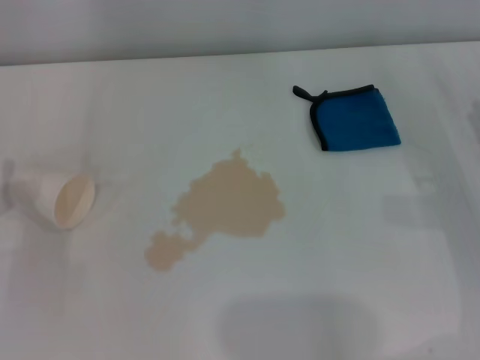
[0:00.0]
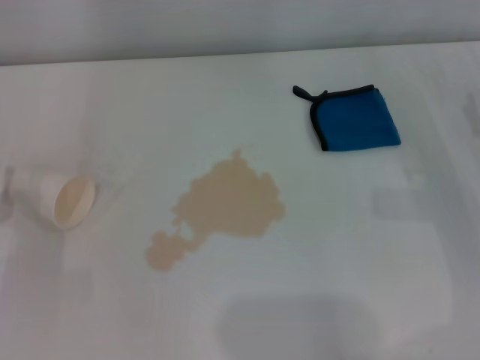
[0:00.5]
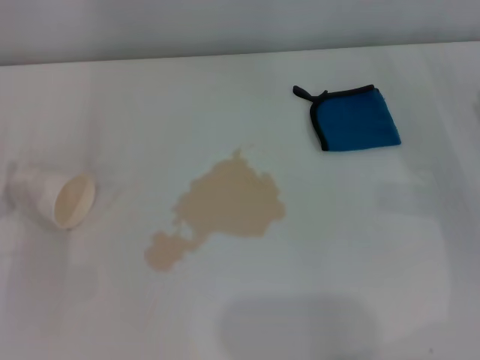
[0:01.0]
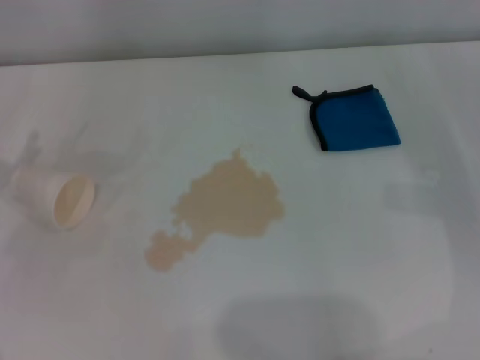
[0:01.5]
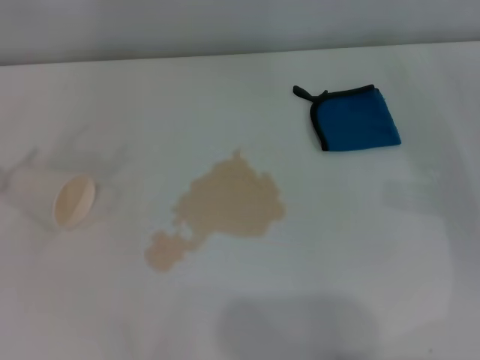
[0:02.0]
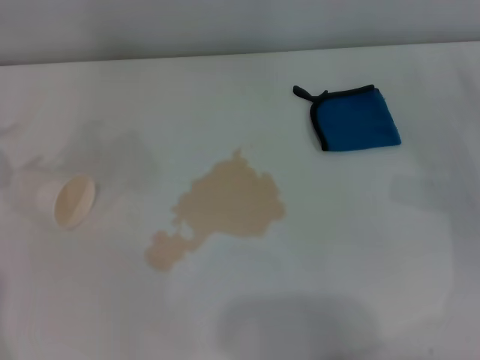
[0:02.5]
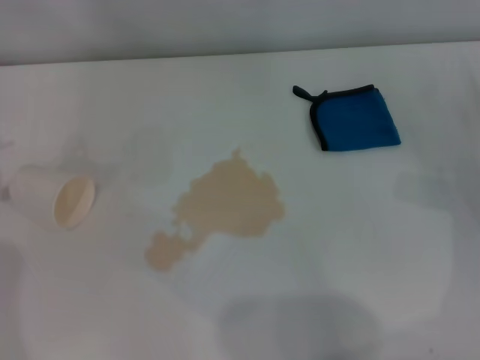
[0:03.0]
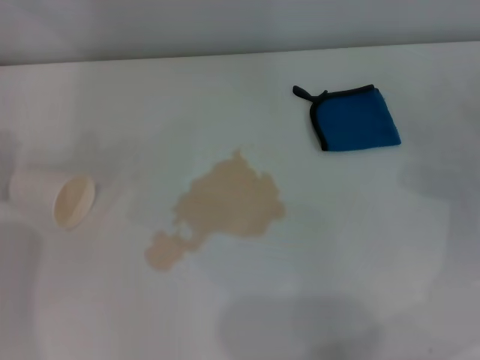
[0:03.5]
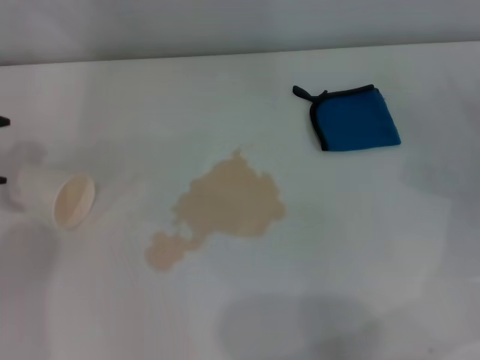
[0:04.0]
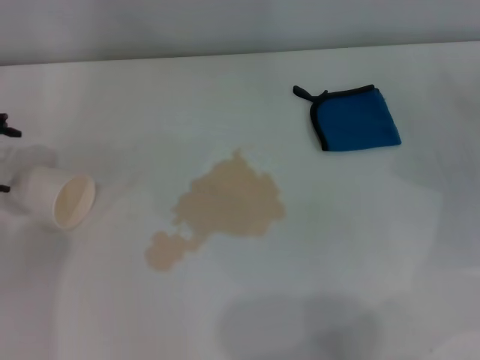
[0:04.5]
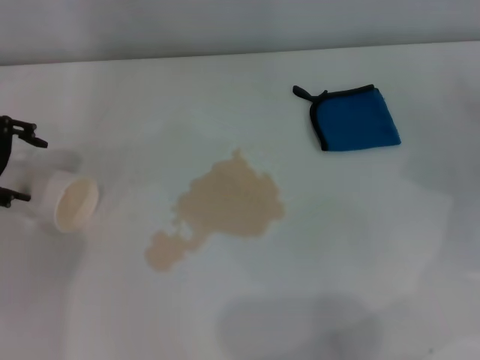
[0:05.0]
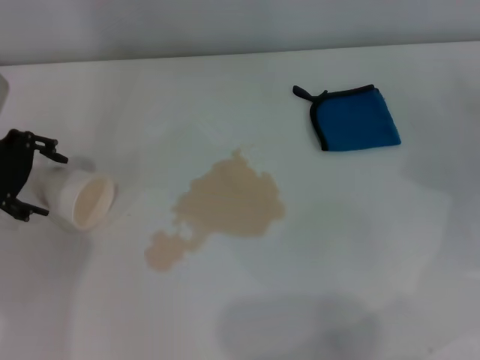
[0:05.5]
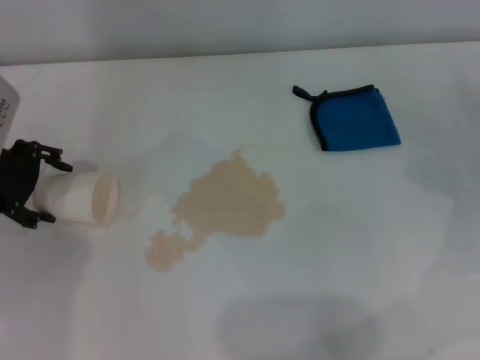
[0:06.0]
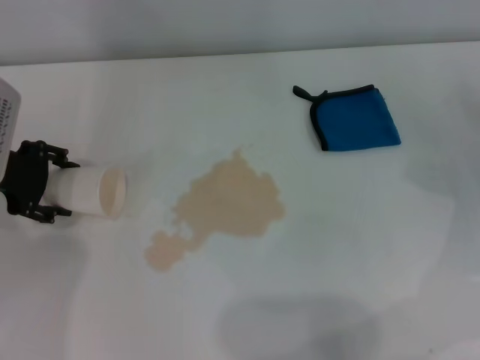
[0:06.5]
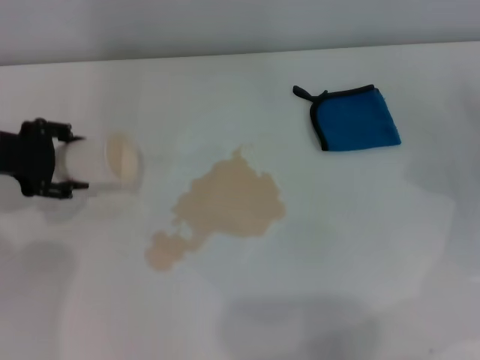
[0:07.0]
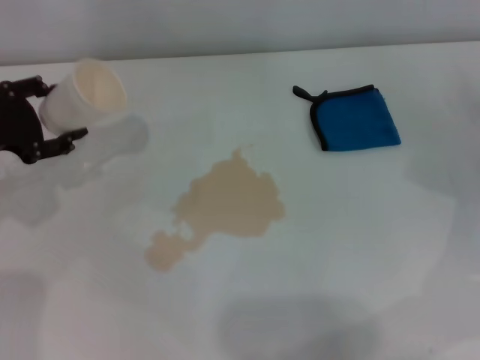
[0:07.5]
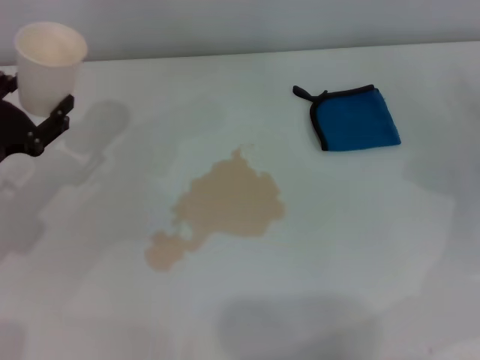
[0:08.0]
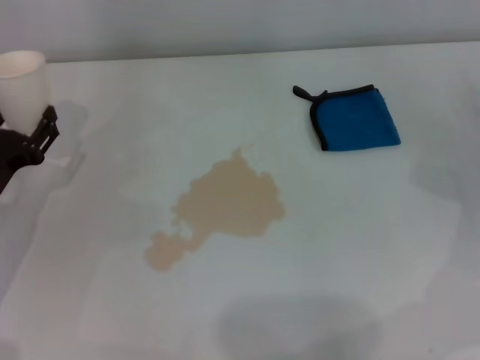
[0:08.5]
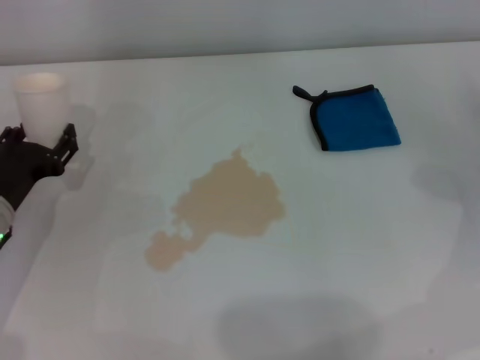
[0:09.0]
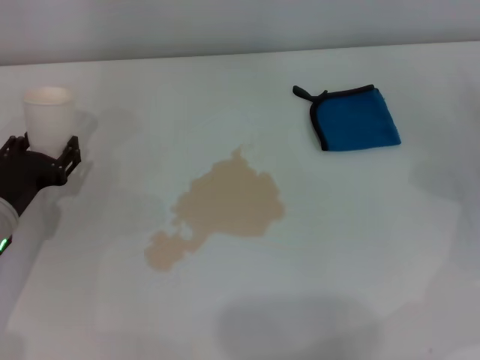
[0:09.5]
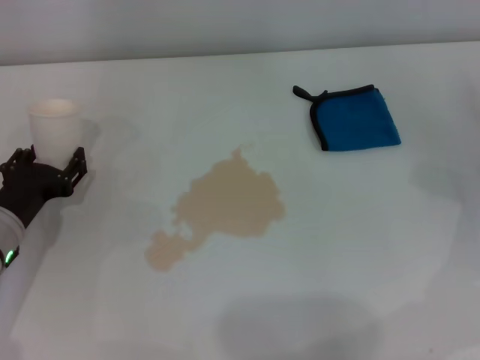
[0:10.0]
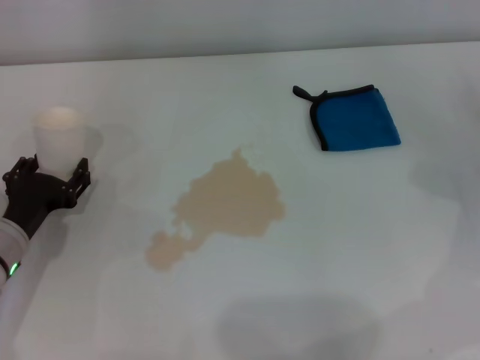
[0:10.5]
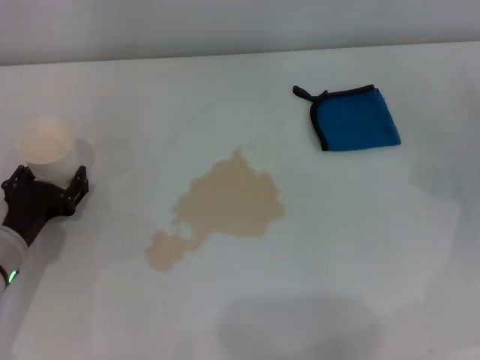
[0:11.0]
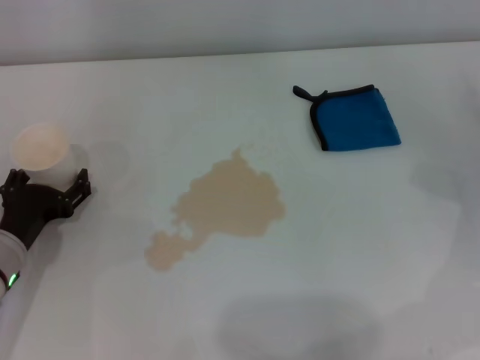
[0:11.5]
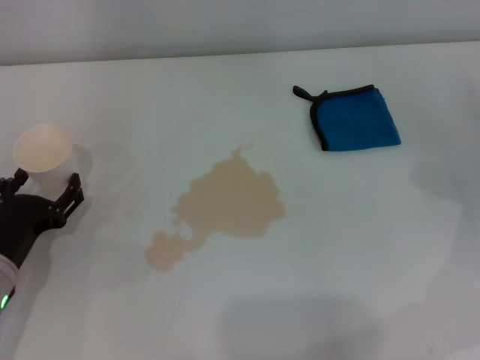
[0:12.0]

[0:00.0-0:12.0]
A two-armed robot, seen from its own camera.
Step, 0:00.0 to 0:06.5: Grasp the paper cup with the left gripper.
Step, 0:07.0 to 0:11.5: Stand the paper cup upright with the left gripper.
0:04.0 to 0:06.0: The left gripper goes about 10 cm to the right and downward.
0:06.0 to 0:08.0: The left gripper goes approximately 10 cm backward and downward, and closes up.
0:08.0 to 0:10.0: The left gripper goes some 5 cm downward.
0:10.0 to 0:12.0: The left gripper moves roughly 5 cm, and opens its fingers.

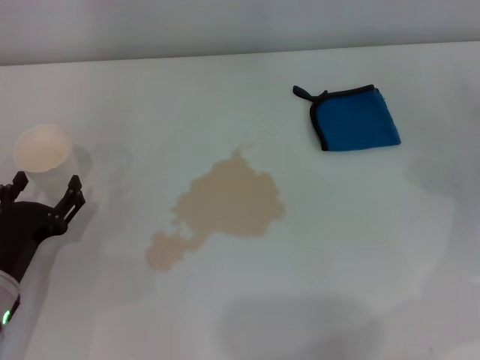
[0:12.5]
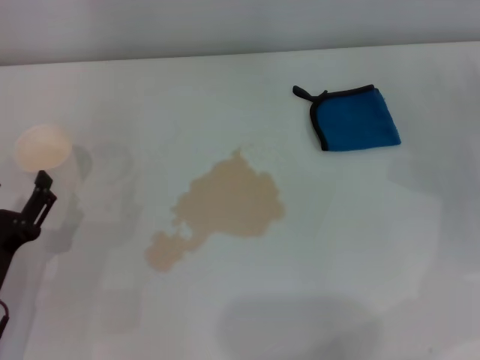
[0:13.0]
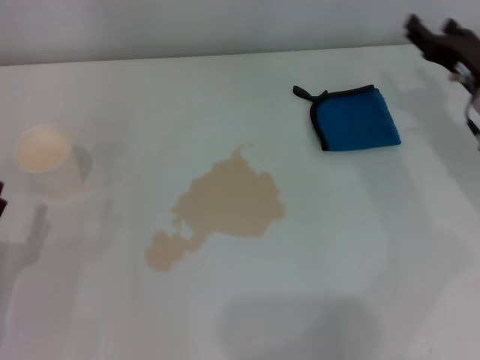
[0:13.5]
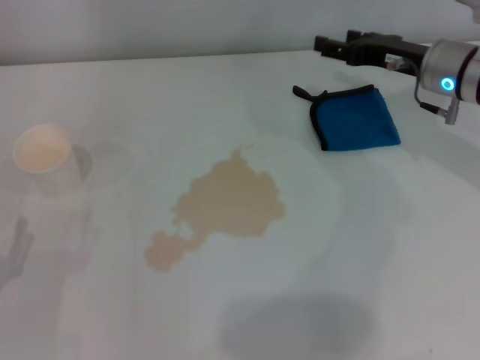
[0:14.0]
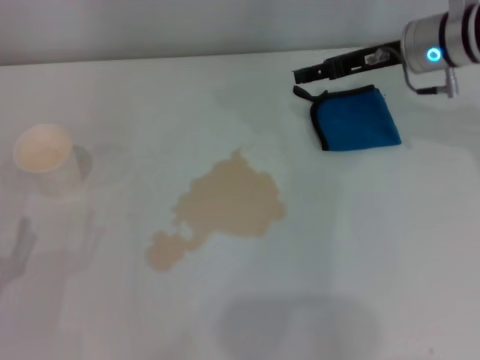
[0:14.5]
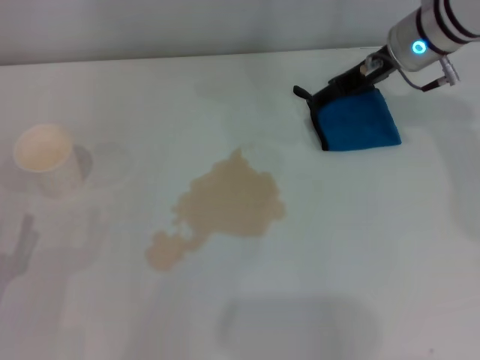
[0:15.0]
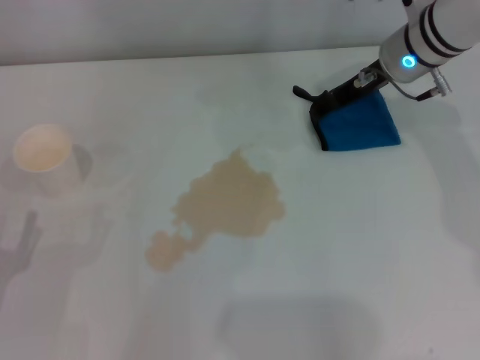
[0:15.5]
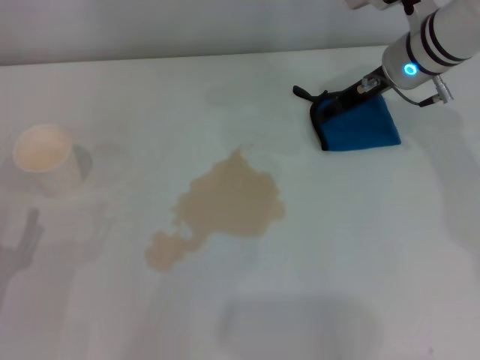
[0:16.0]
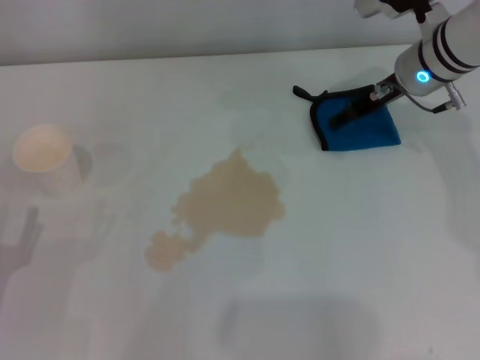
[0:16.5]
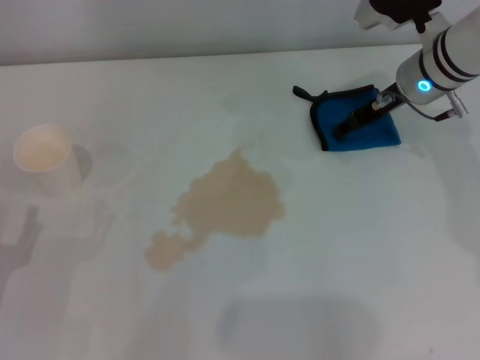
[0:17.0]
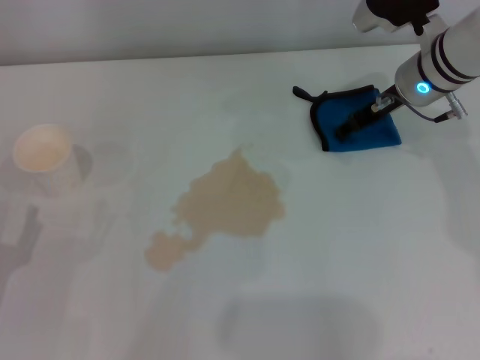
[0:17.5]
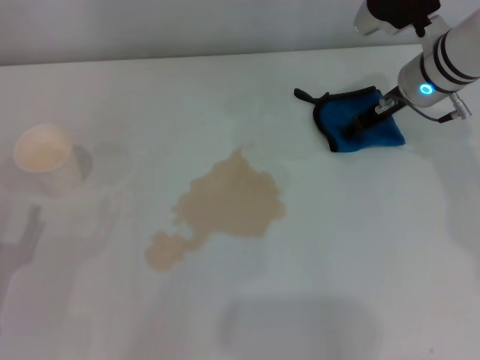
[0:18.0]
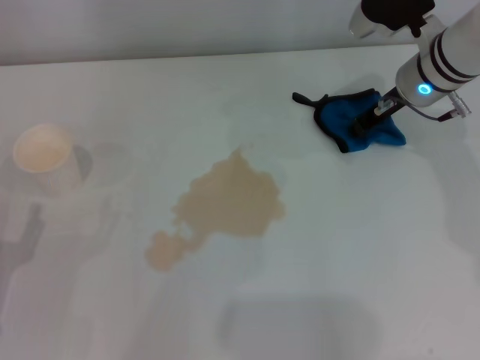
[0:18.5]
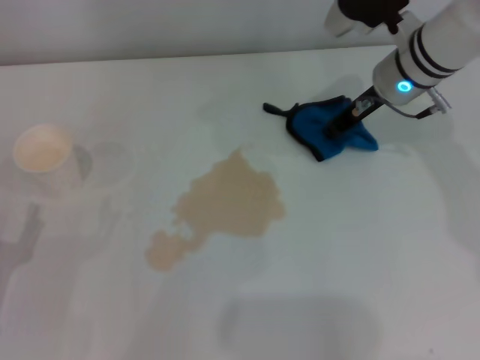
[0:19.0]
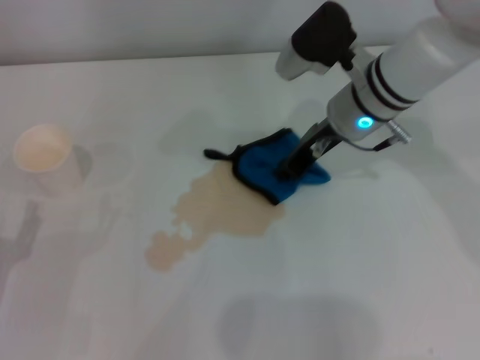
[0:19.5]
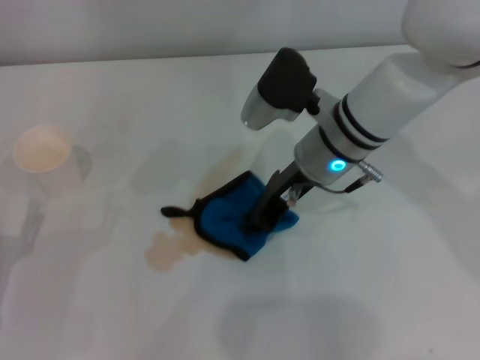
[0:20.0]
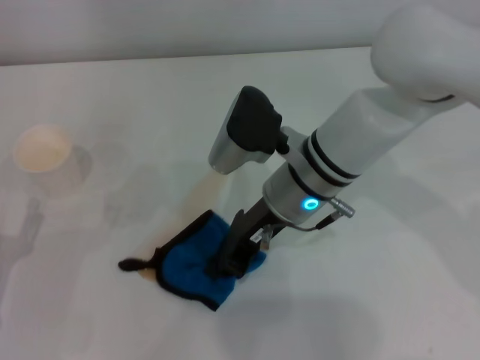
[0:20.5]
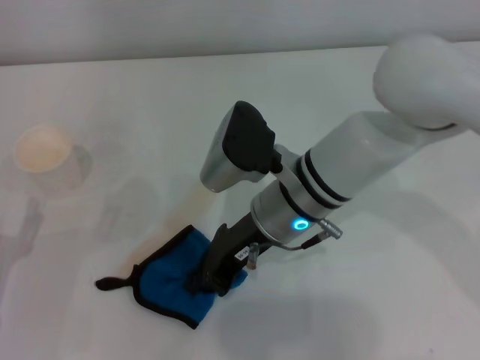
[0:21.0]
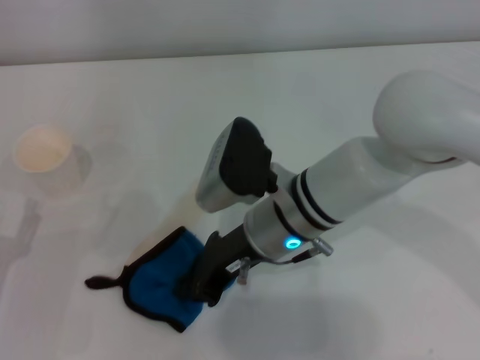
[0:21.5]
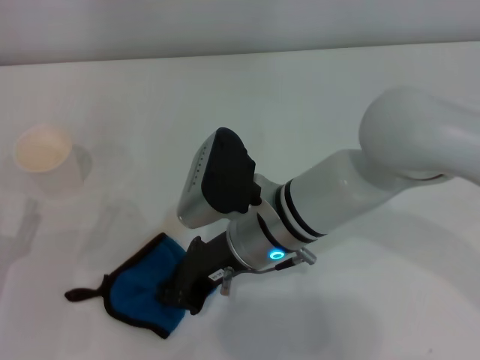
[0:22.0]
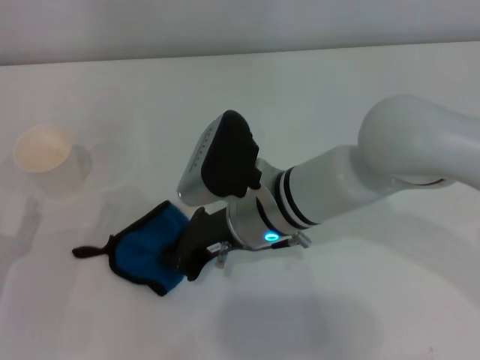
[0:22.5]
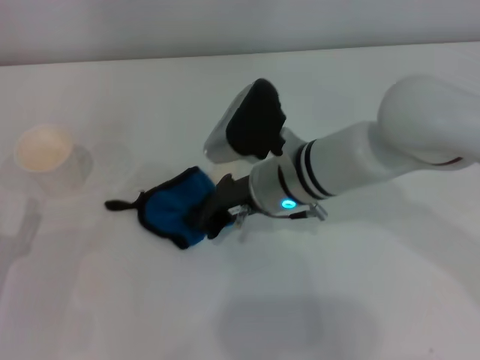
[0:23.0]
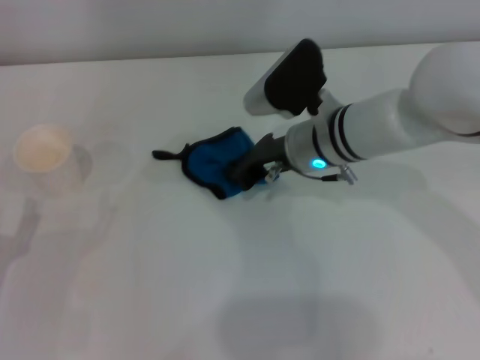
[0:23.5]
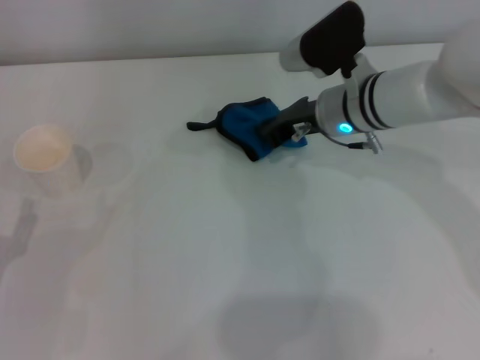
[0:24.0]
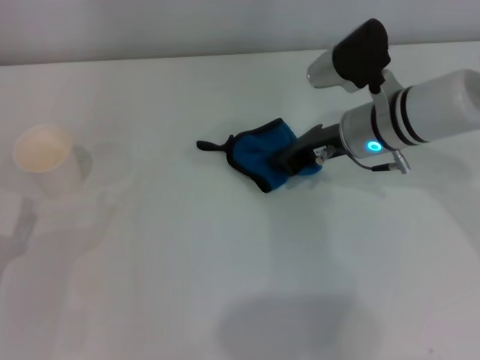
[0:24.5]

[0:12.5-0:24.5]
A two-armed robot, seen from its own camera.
Step, 0:12.5 to 0:18.0: Grasp the rag with the right gripper.
0:12.5 to 0:14.5: The right gripper shifts about 20 cm forward, to the left and upward; the left gripper travels backward by approximately 5 cm.
0:16.5 to 0:18.5: The right gripper closes.
0:18.5 to 0:20.5: The right gripper travels to the left and backward by about 20 cm.
0:20.5 to 0:22.5: There are only small adjustments of the grippers.
0:22.5 to 0:24.5: The right gripper travels to the right and forward by approximately 15 cm.

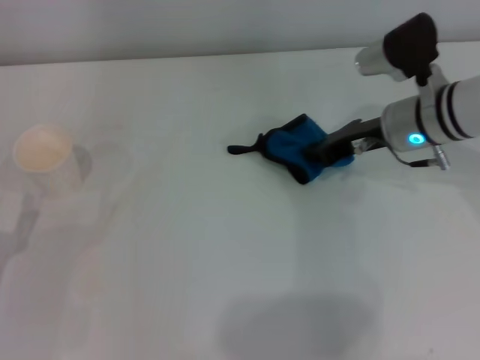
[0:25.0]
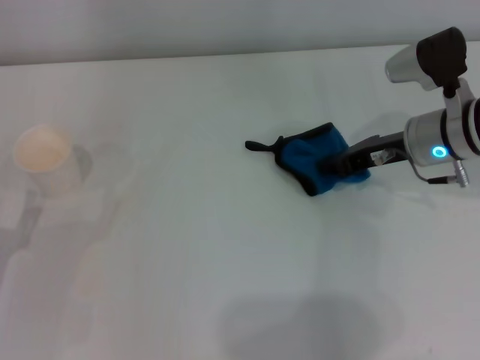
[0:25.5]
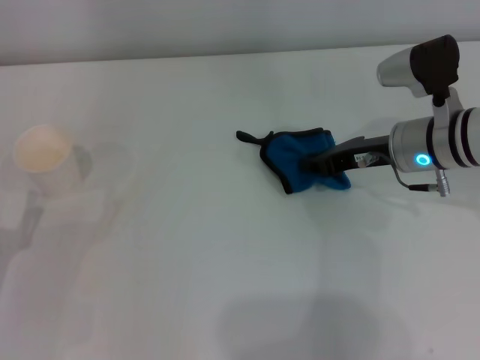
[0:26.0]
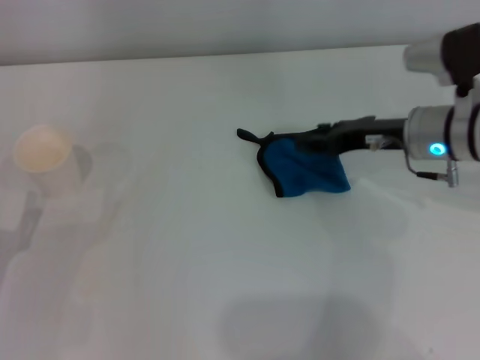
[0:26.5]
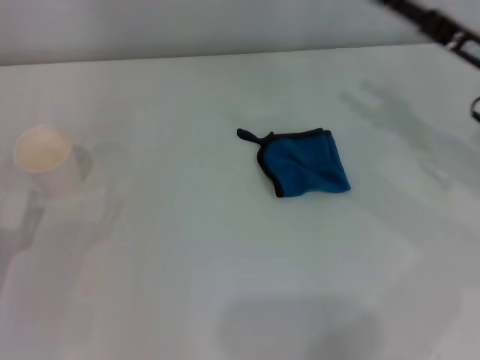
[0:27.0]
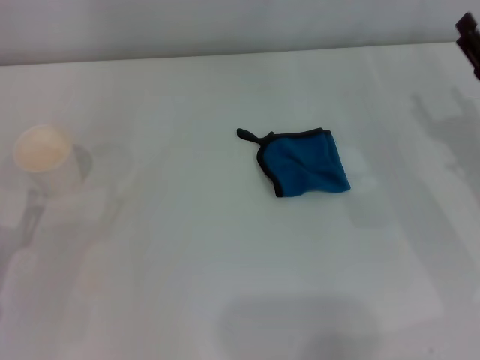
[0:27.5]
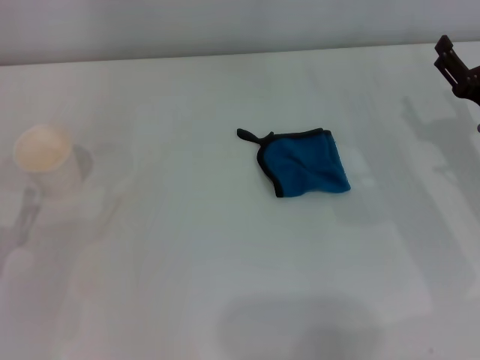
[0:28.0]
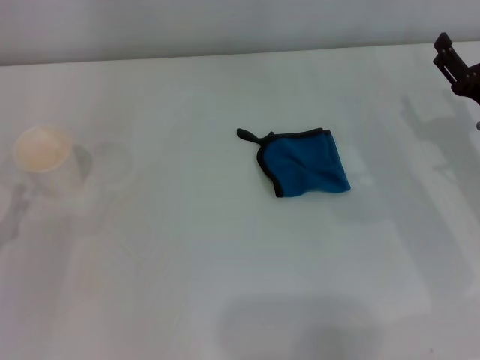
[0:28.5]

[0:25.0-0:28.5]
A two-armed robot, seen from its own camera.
0:25.0 to 0:27.0: The right gripper heads to the right and backward, covering about 10 cm, and opens its fingers.
0:27.0 to 0:28.5: The right gripper travels downward by approximately 5 cm.
